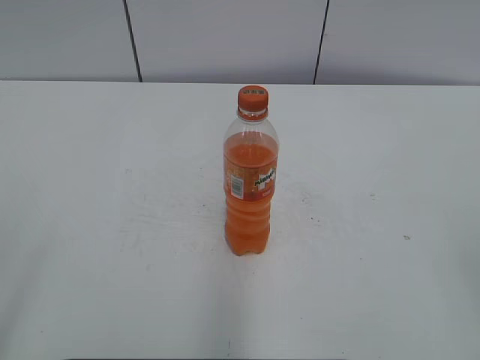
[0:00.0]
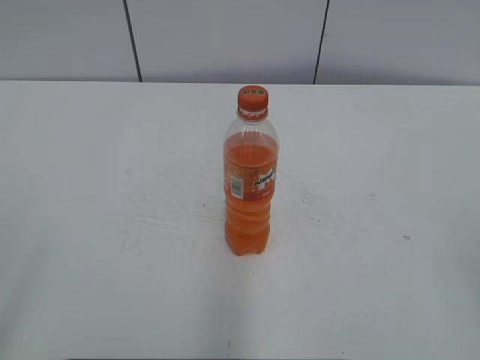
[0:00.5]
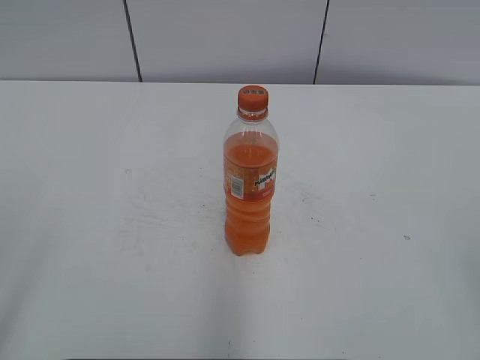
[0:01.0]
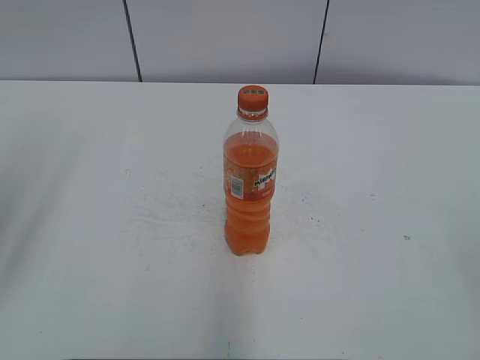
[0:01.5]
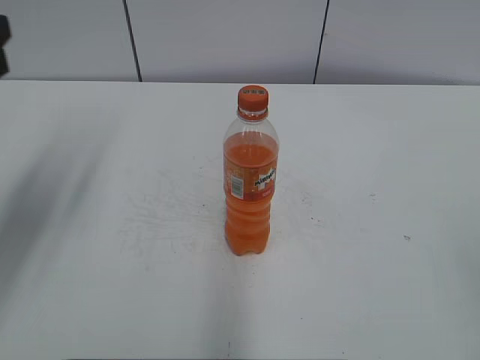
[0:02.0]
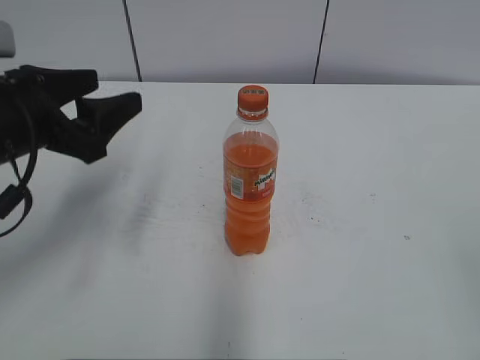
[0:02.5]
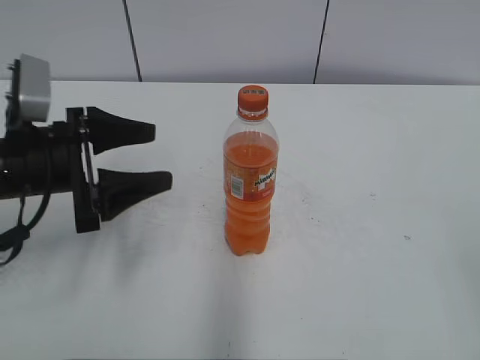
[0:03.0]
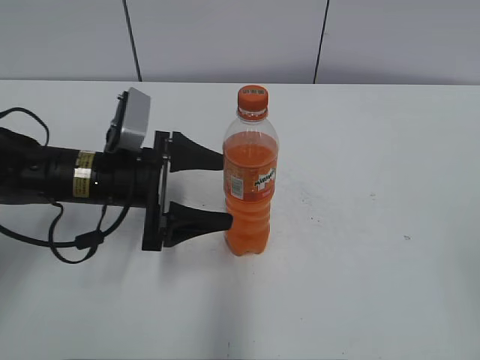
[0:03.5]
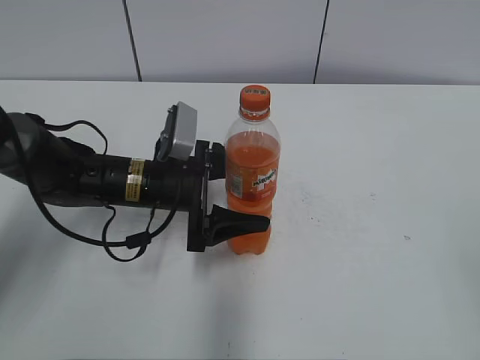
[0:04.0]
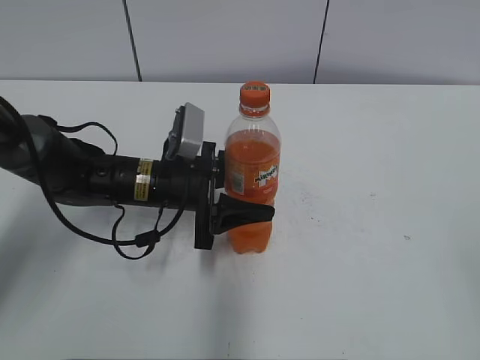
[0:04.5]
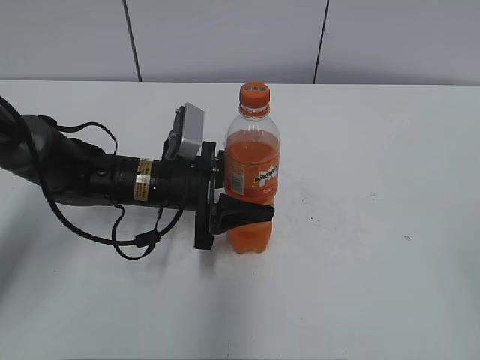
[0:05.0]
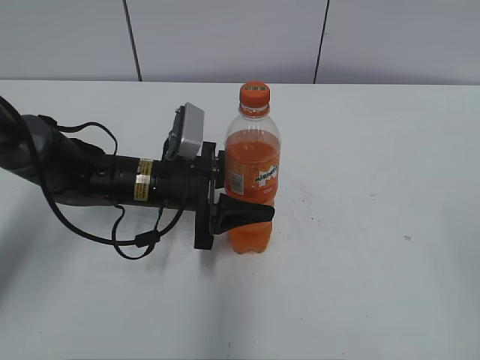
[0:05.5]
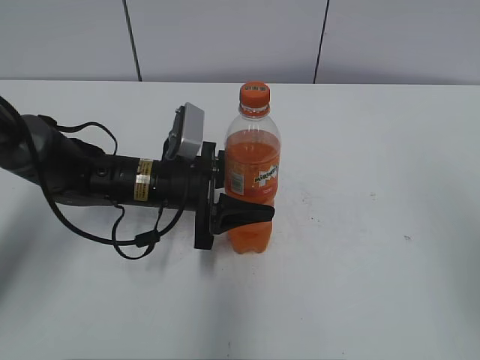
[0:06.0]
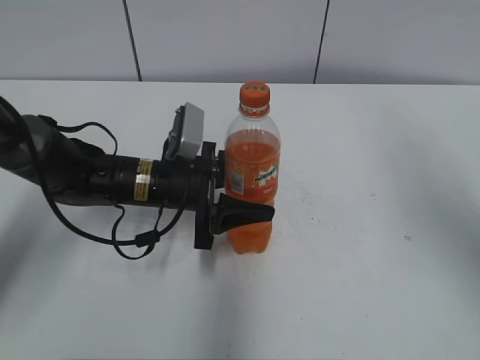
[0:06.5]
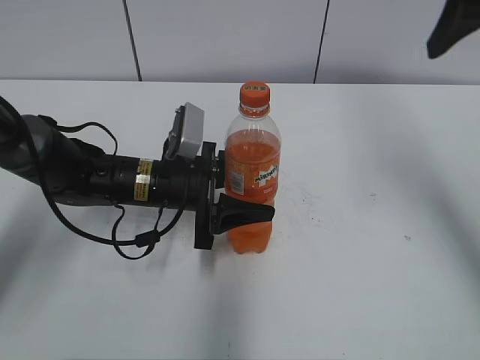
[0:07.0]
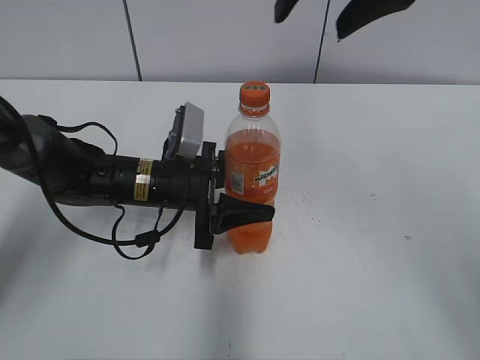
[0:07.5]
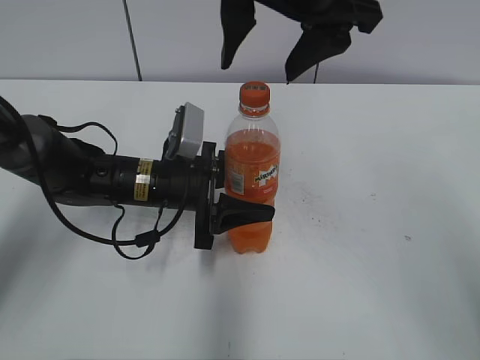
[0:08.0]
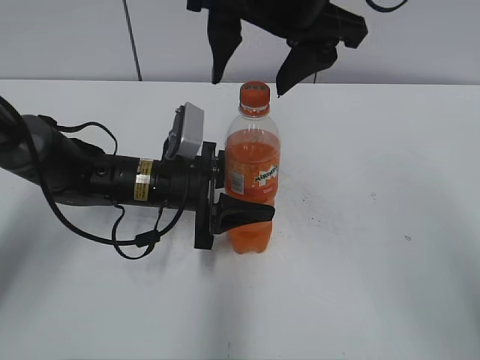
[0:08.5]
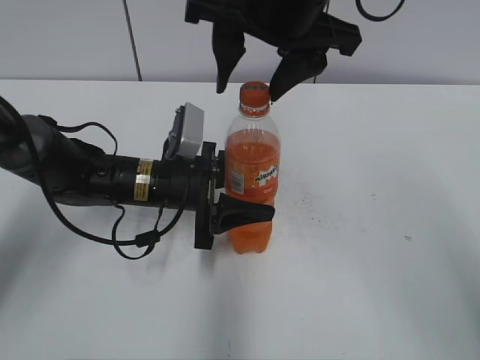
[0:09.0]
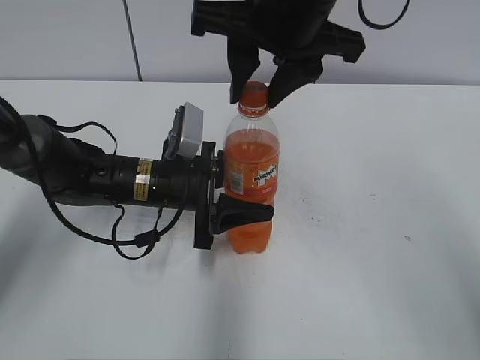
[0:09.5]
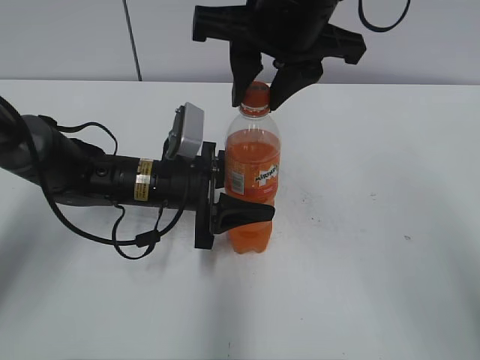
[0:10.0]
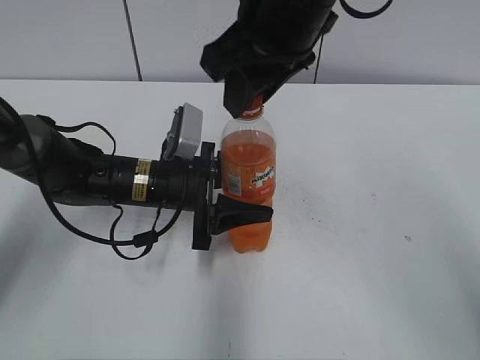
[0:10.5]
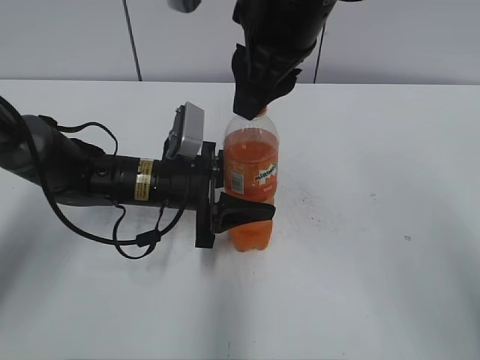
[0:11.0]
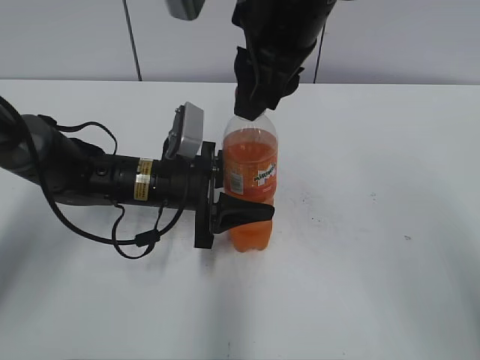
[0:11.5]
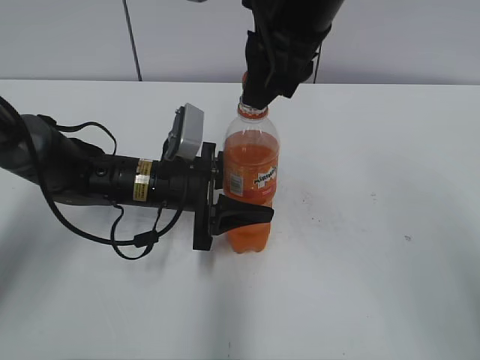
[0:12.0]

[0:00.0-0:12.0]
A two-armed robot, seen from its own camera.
Step, 0:00.0 to 0:04.0: Grab the Mirinda with the left hand.
0:02.0 to 0:04.0: The left gripper shifts roughly 25 cm downward, to the right and forward, and opens its fingers.
0:04.0 to 0:06.0: The right gripper goes roughly 10 cm forward. Meanwhile the left gripper closes its fingers.
0:06.0 to 0:08.0: The right gripper travels to the left and forward by some 30 cm, and opens its fingers.
0:08.0 to 0:10.0: The right gripper closes its fingers.

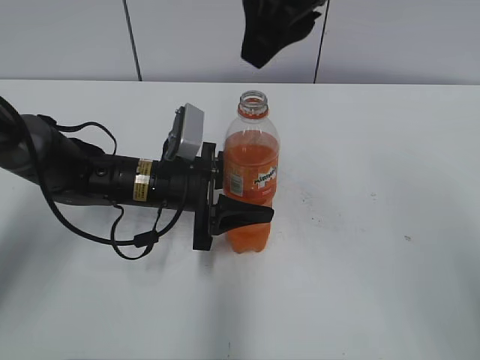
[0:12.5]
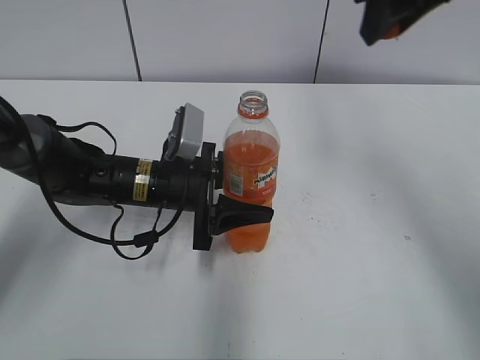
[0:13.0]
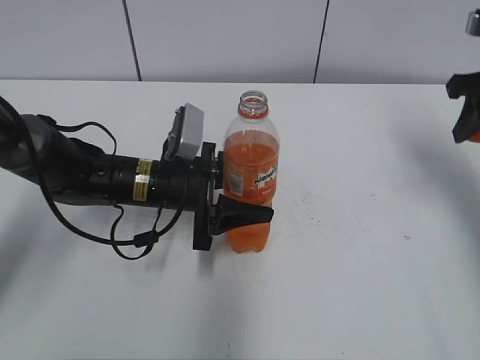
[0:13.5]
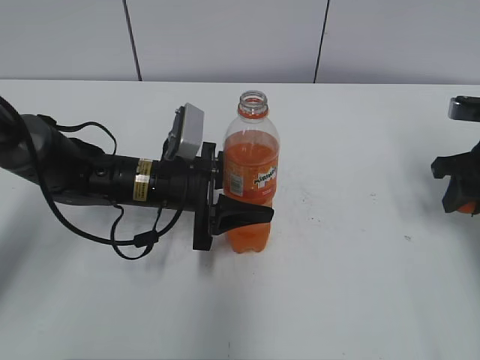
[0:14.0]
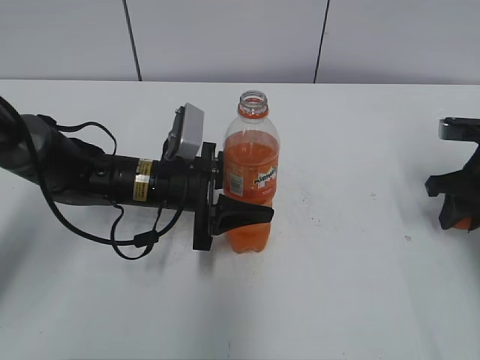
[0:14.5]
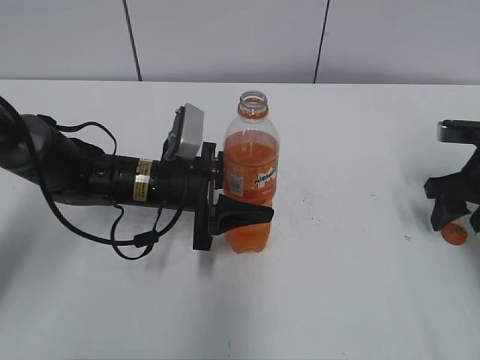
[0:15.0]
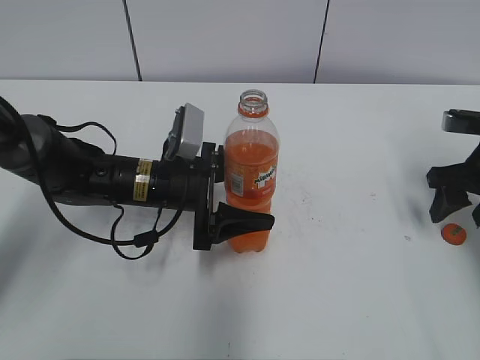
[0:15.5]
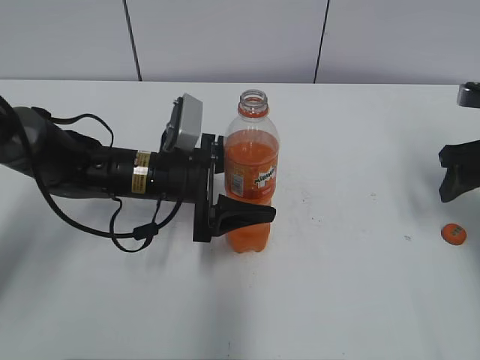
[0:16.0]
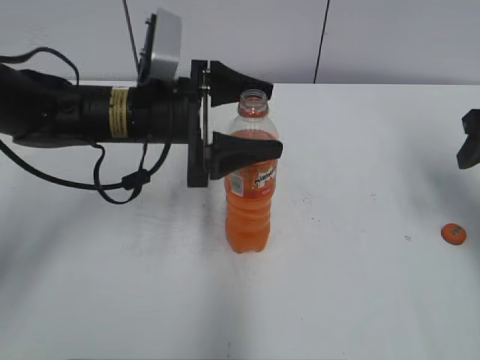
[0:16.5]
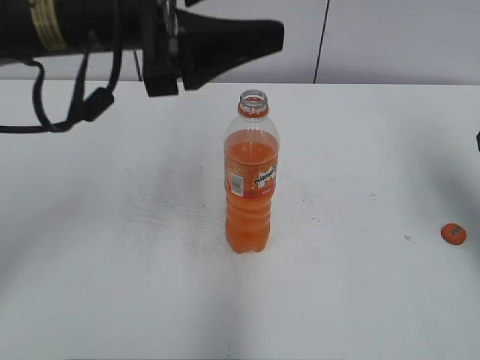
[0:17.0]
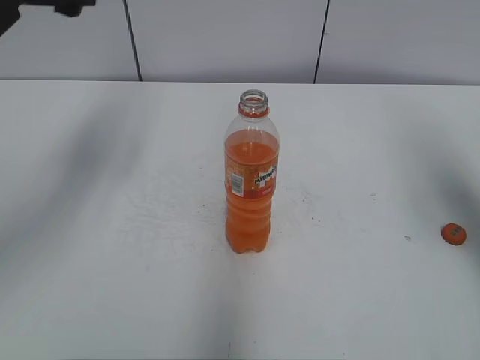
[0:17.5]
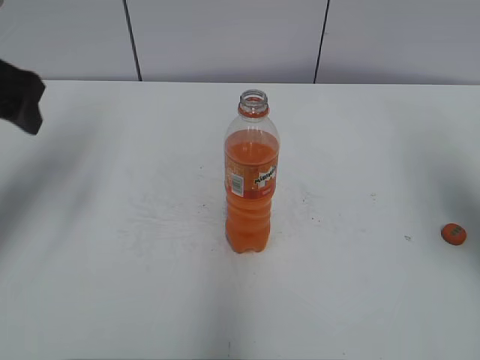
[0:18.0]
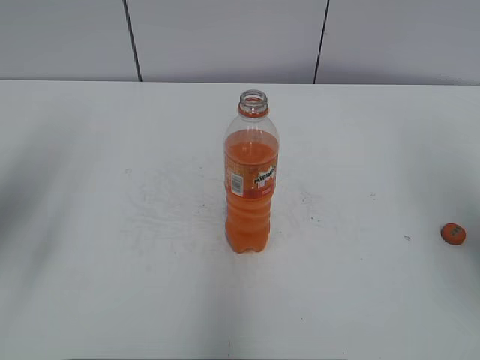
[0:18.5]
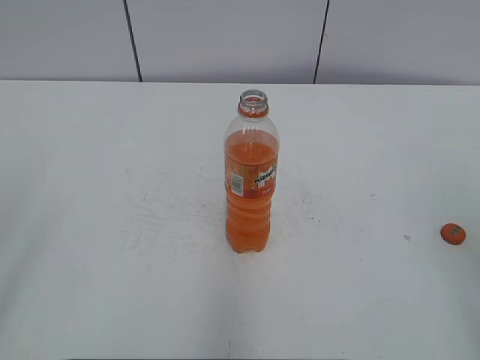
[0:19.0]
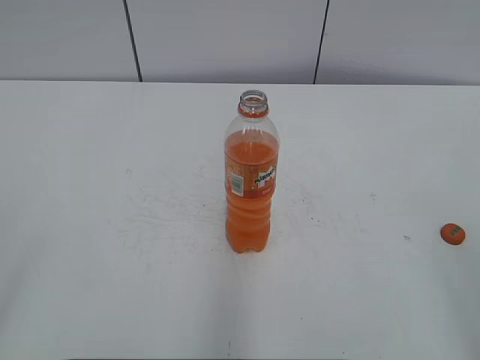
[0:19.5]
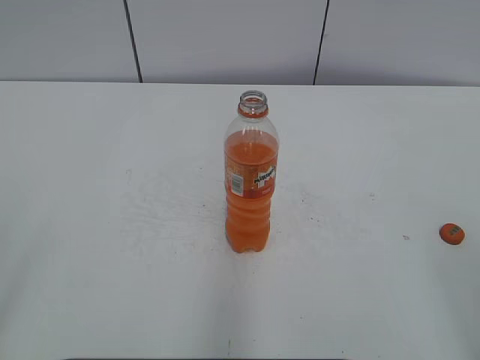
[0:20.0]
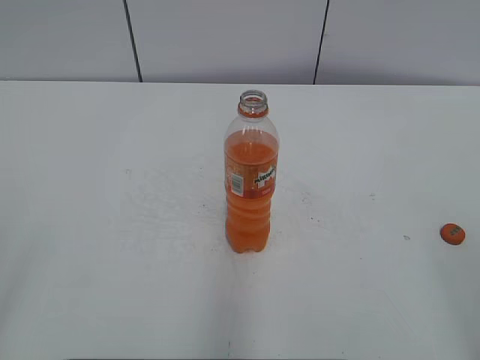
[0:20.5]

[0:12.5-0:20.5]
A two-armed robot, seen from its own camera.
Step, 0:12.5 to 0:14.5: Place the bottle cap on the right.
0:12.5 to 0:14.5: The right gripper moves to the right and downward, some 35 cm.
0:14.5 to 0:16.5: The two grippers go approximately 10 cm upward. The left gripper opens up, while the right gripper opens.
0:16.5 to 0:18.5: The right gripper moves backward and upward, about 15 cm; the left gripper heads to the left, upward and backward, covering about 25 cm.
0:18.5 to 0:20.5: The two grippers go some 20 cm backward.
